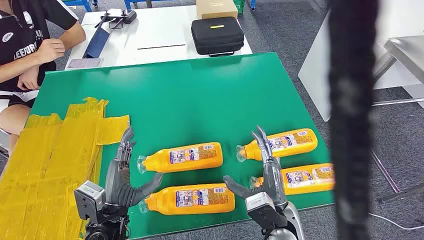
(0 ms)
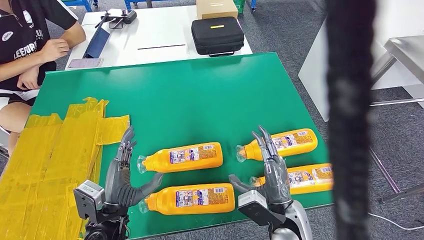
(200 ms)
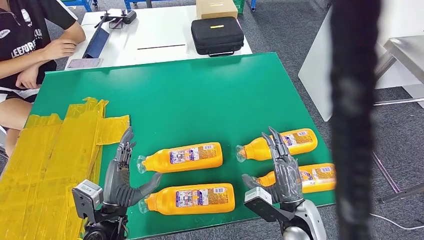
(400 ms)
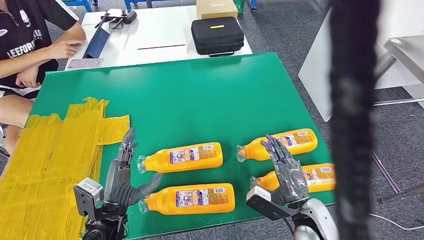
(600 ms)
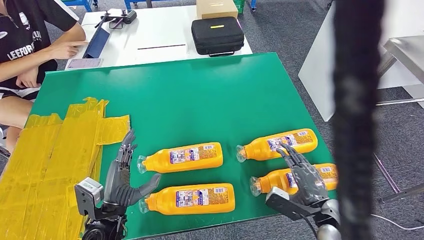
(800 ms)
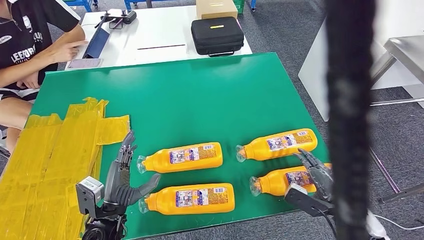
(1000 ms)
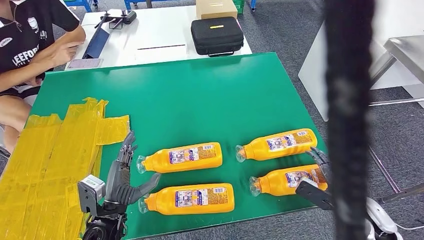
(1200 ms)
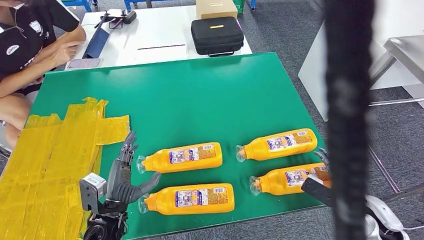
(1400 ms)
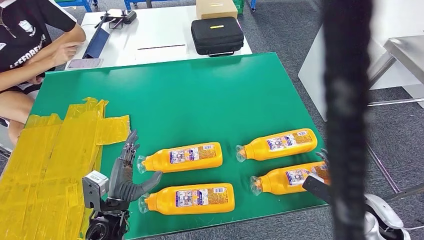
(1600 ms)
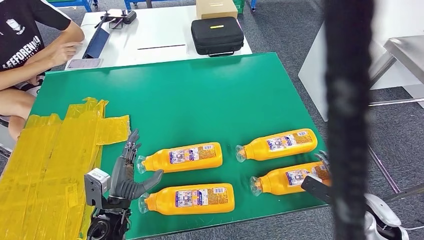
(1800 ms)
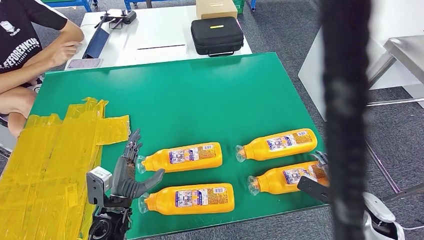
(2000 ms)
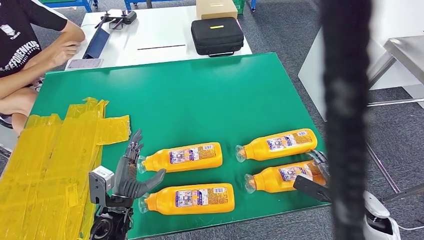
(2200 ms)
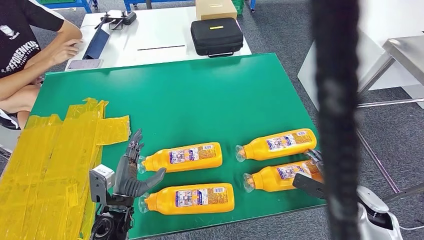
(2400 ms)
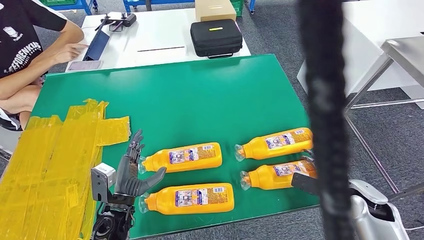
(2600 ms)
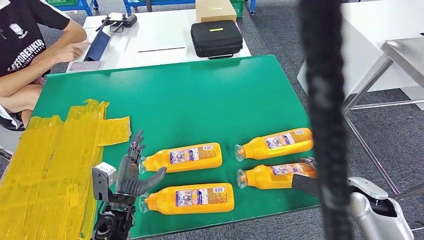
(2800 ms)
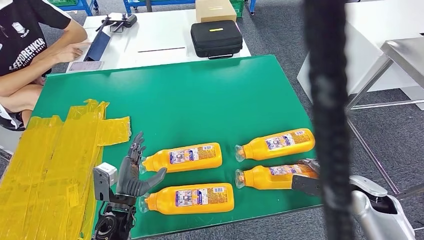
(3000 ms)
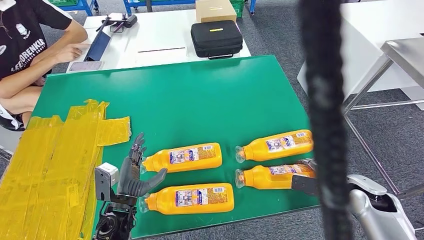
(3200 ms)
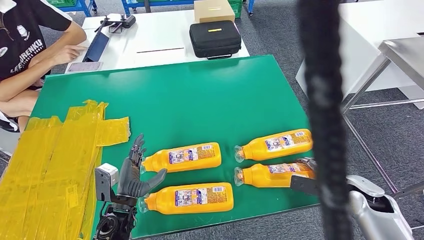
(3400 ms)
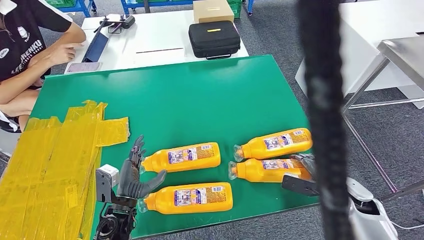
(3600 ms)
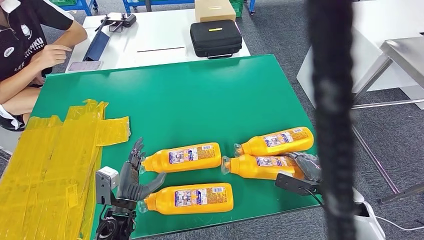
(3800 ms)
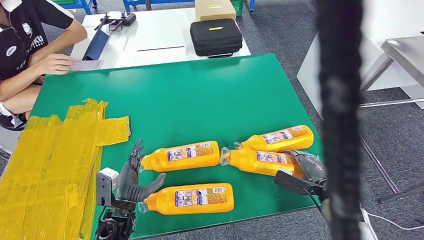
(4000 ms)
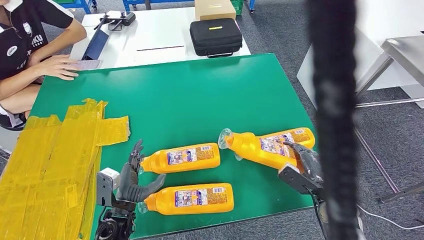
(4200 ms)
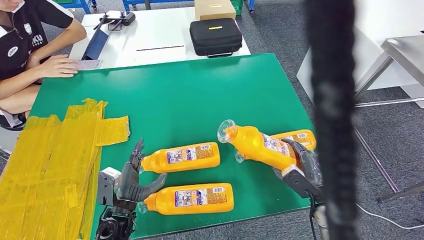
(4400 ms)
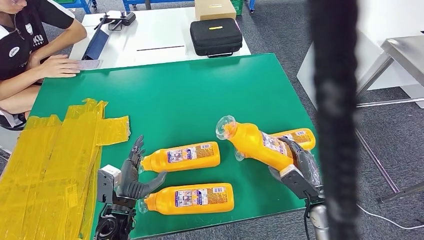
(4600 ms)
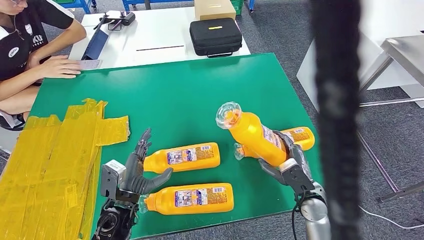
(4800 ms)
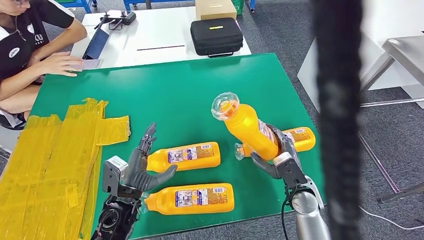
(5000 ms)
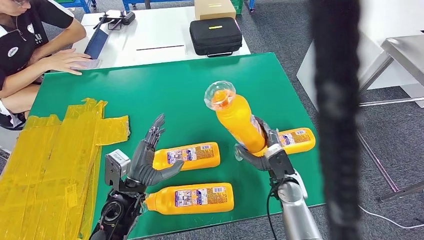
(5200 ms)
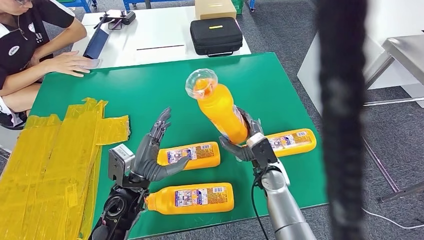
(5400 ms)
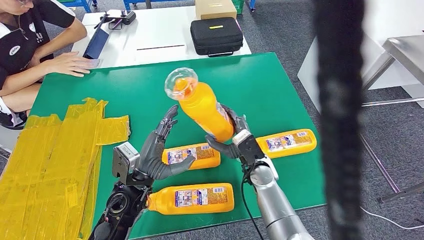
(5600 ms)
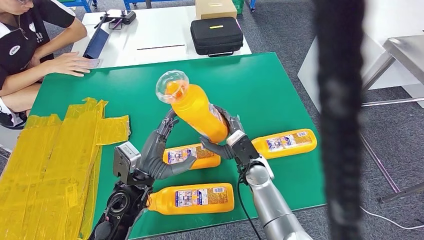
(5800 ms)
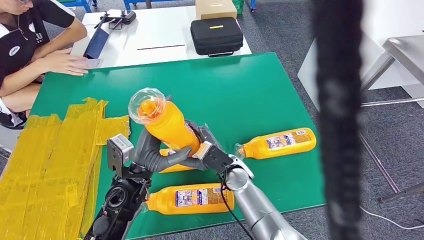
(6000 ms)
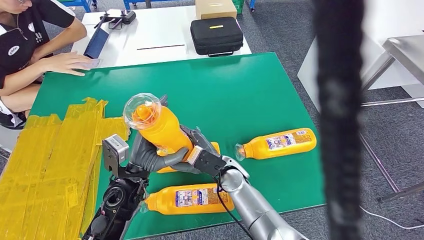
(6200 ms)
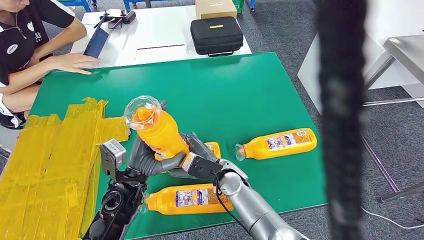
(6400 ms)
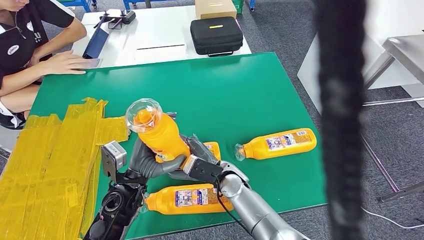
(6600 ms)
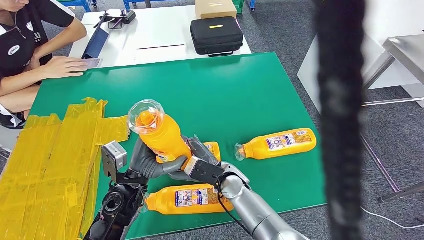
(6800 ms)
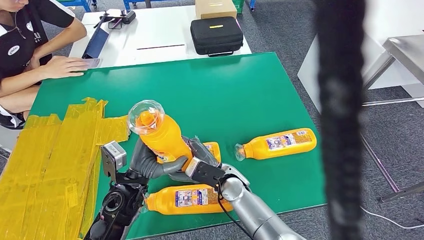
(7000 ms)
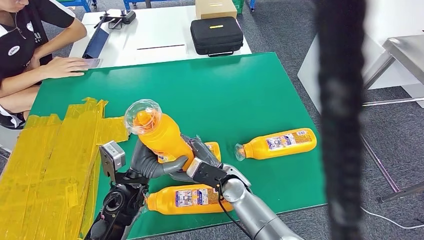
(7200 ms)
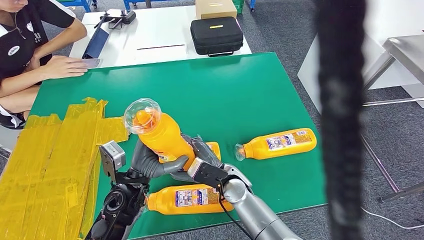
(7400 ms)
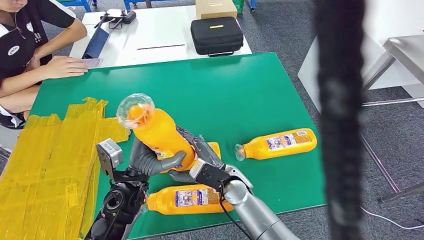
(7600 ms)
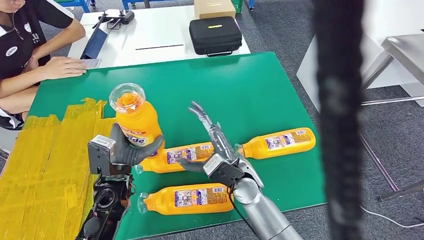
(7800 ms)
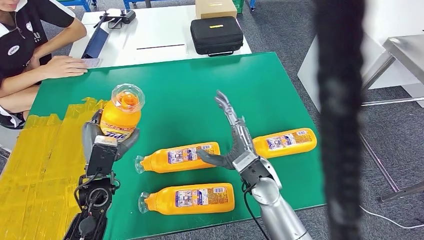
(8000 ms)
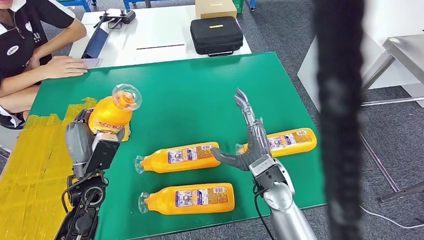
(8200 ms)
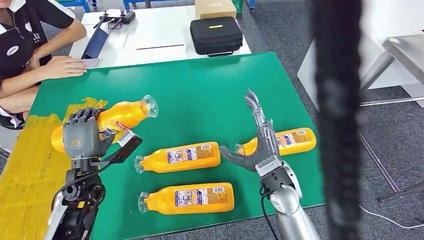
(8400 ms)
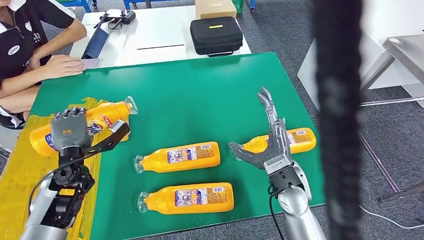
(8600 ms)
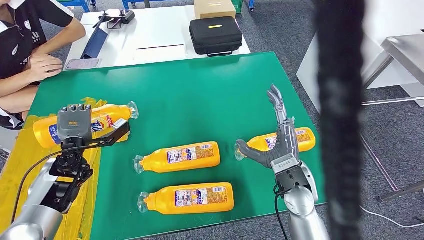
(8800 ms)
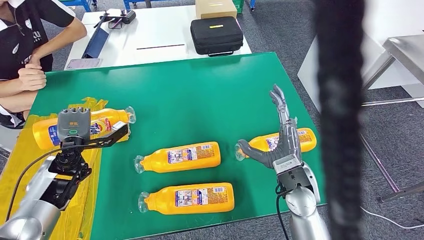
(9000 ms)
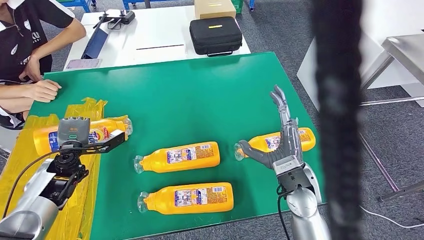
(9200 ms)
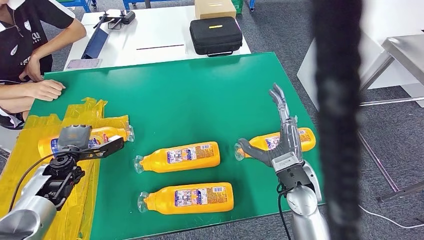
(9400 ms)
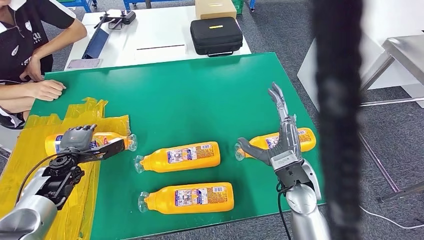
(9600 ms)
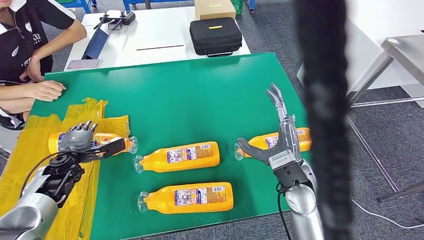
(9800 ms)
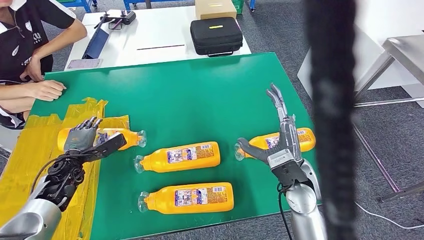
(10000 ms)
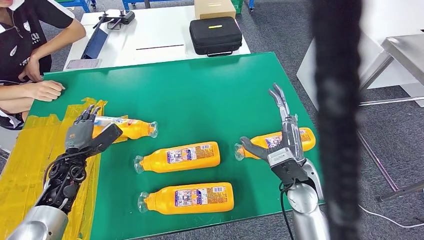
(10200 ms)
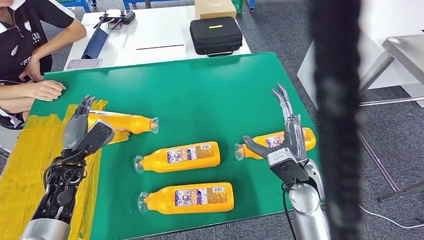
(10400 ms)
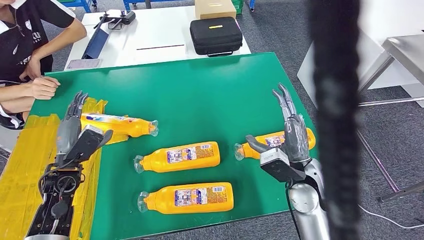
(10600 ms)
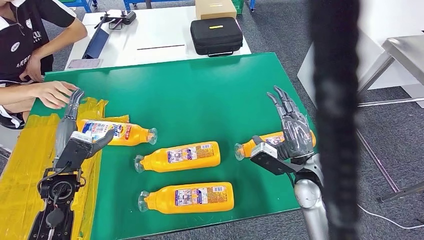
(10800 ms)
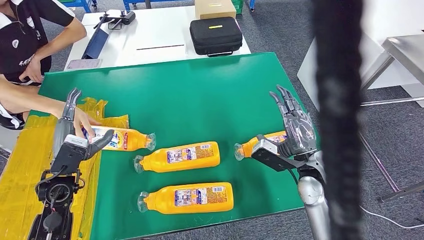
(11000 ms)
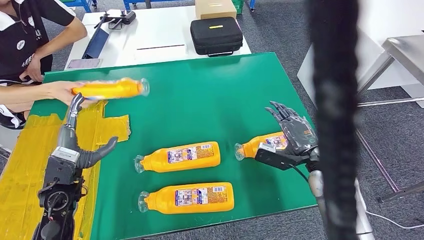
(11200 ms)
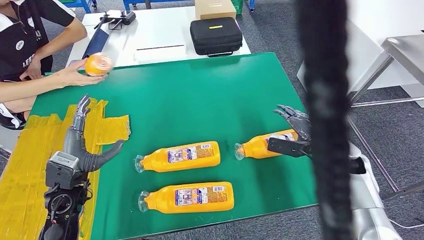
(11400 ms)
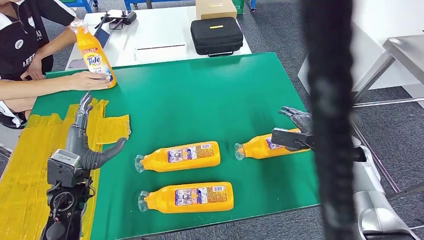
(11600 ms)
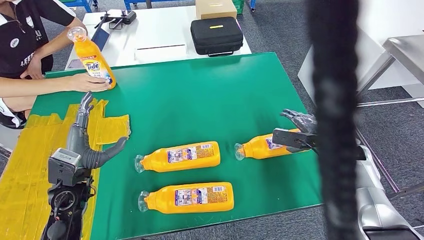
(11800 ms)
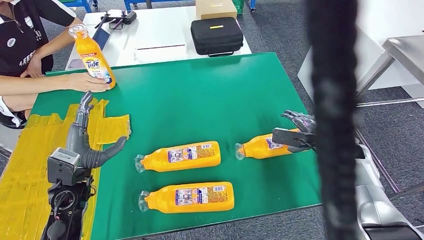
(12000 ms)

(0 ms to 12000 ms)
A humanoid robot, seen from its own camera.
Step, 0 ms - 5400 ms: Take the fast-moving consumer goods bottle from the table.
Step, 5800 ms - 10200 ms: Flip the fast-moving consumer goods bottle to the front side.
6000 ms - 7600 ms: The hands move only a little.

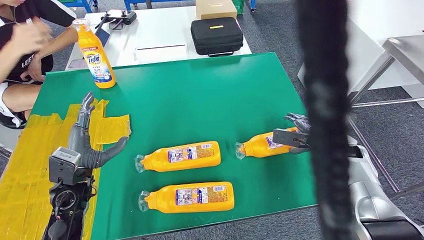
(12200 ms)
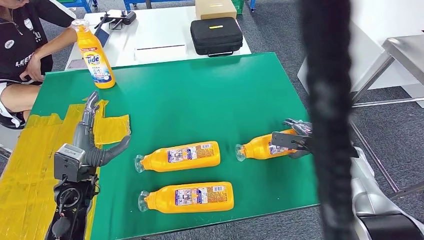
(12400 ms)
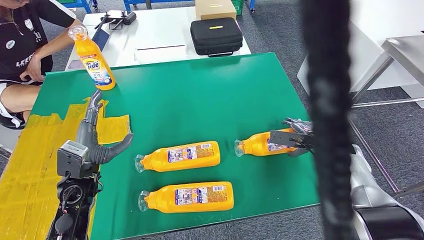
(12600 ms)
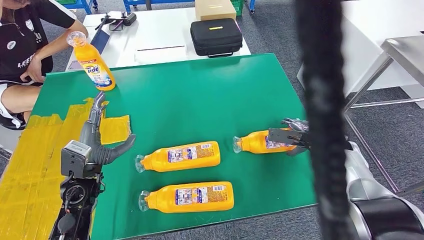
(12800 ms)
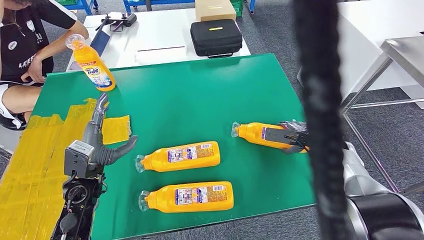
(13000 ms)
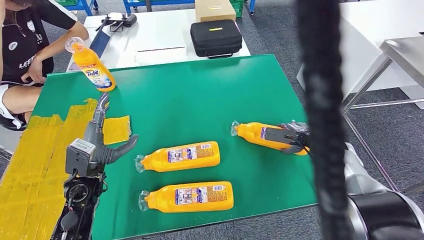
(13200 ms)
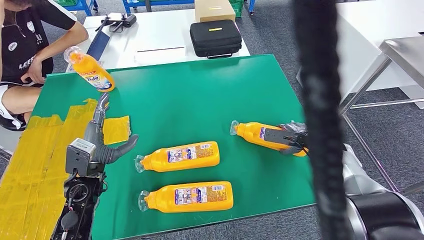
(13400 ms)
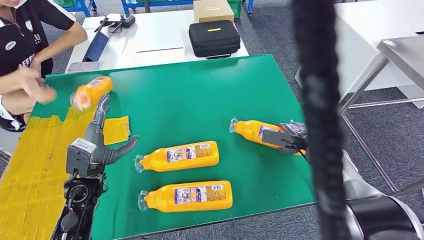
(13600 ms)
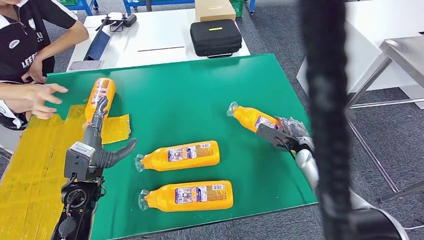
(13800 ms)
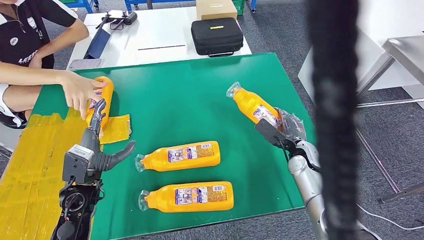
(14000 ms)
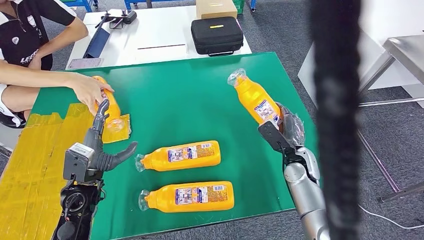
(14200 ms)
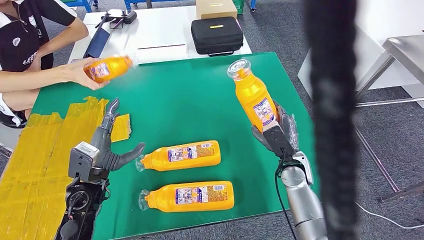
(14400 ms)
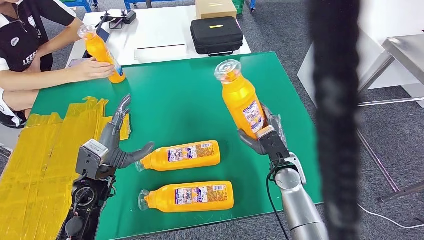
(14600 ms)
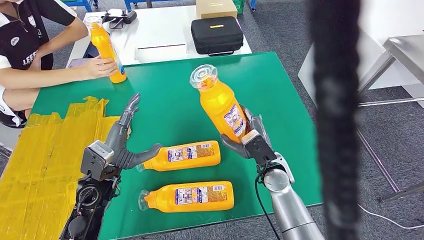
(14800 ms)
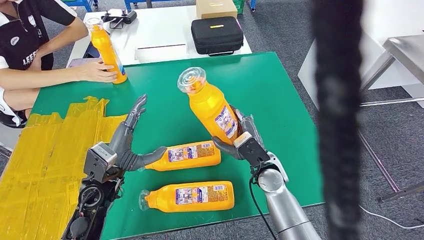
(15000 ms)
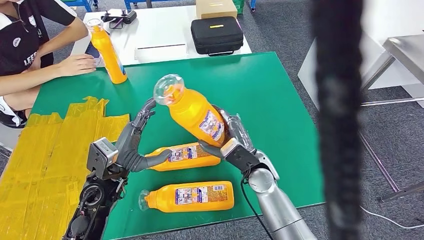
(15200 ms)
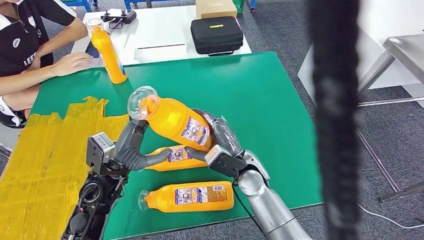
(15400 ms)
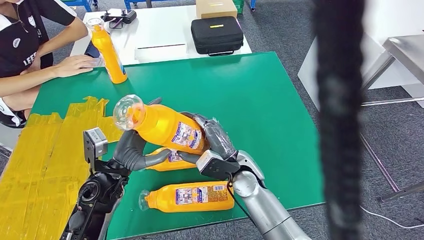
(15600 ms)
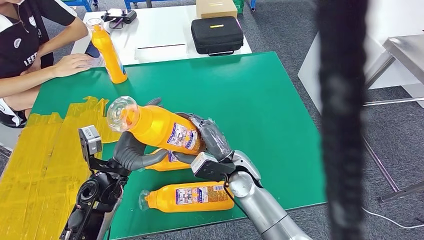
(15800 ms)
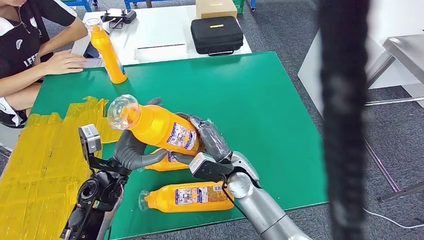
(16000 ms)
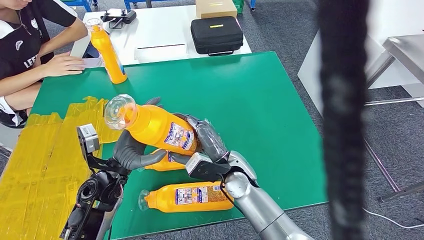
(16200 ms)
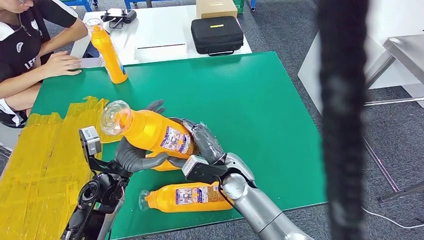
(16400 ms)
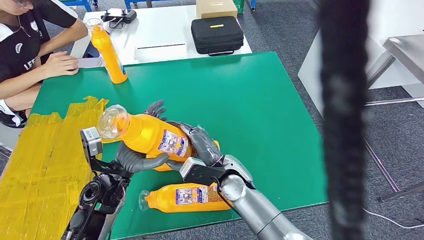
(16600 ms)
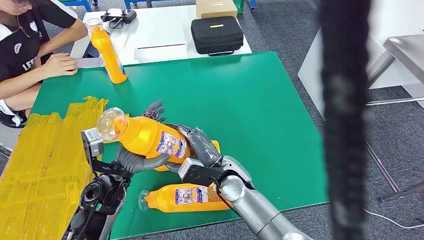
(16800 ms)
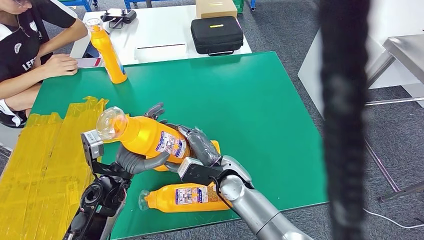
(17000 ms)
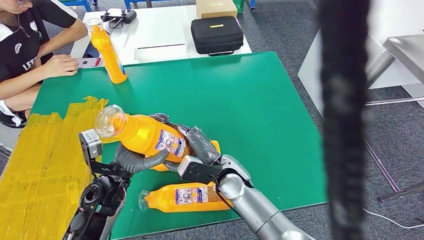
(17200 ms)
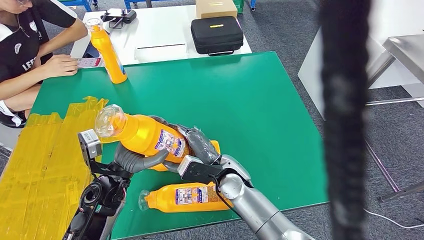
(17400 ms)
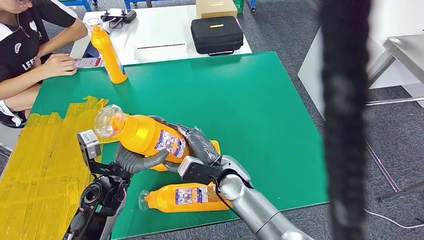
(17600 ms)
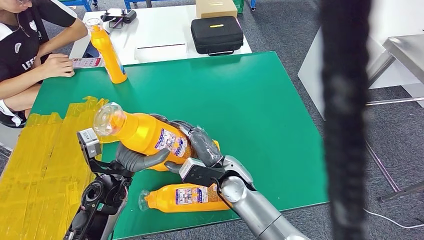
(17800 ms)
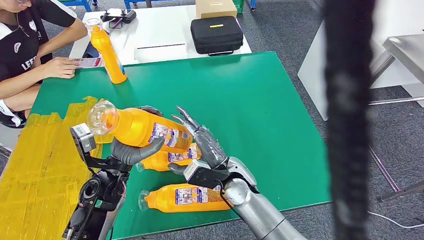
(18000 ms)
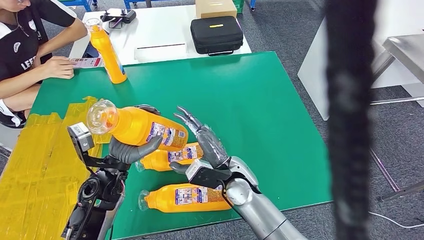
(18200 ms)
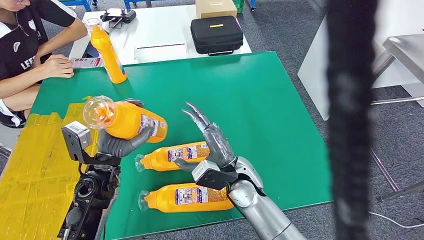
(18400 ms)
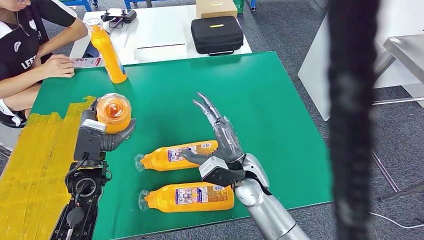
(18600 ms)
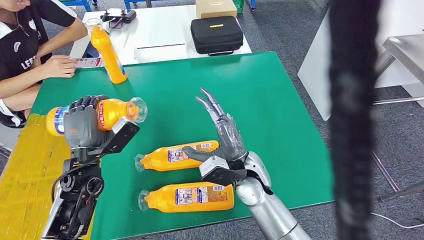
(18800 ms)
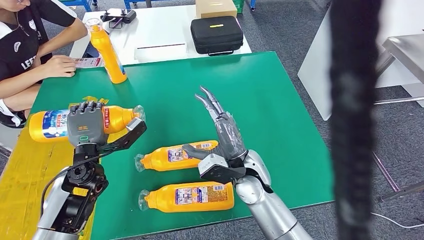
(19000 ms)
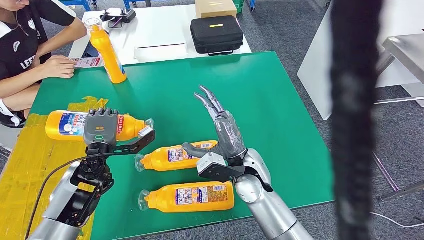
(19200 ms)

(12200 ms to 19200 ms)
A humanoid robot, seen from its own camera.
Step, 12200 ms - 15600 ms: Pick up the fast-moving consumer goods bottle from the table.
16400 ms - 17800 ms: The hands make only small movements.
